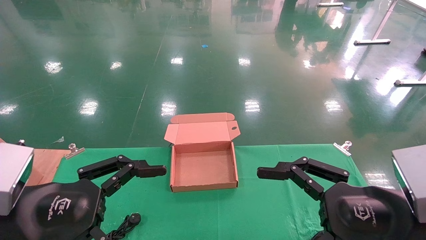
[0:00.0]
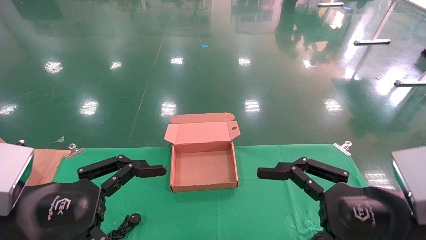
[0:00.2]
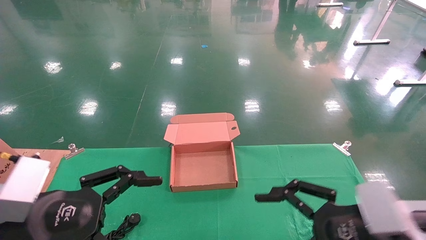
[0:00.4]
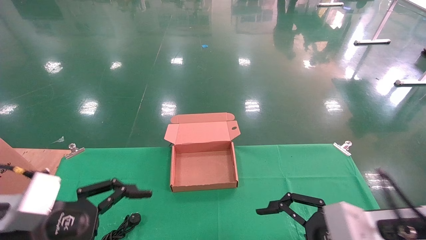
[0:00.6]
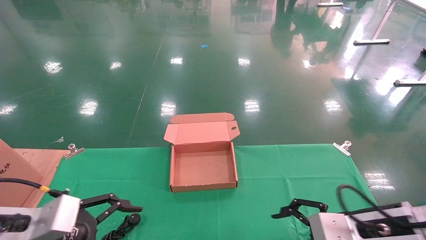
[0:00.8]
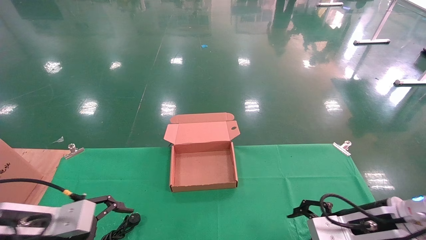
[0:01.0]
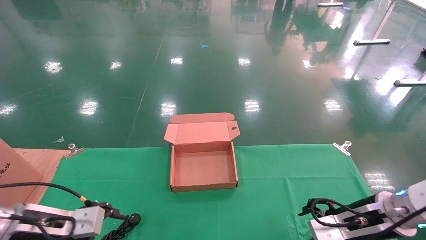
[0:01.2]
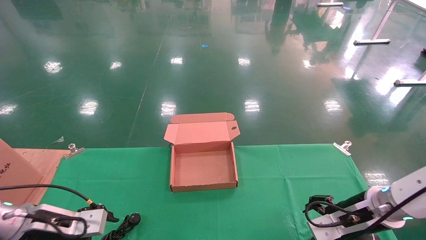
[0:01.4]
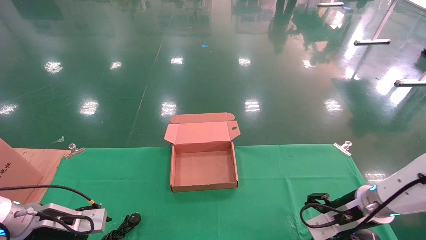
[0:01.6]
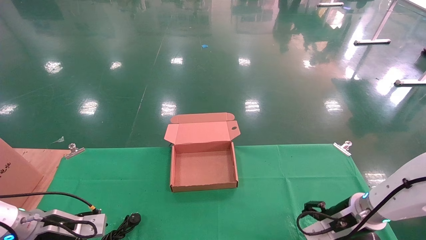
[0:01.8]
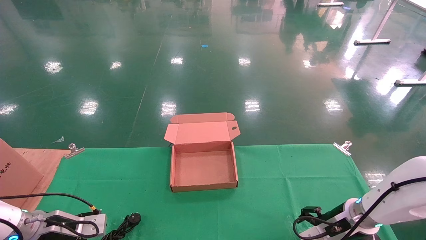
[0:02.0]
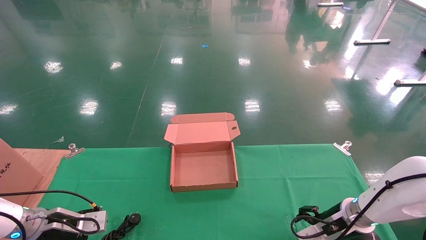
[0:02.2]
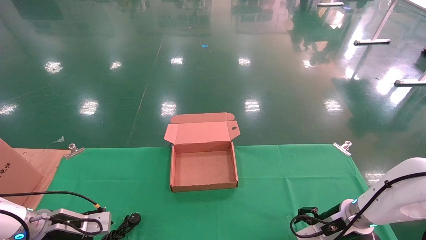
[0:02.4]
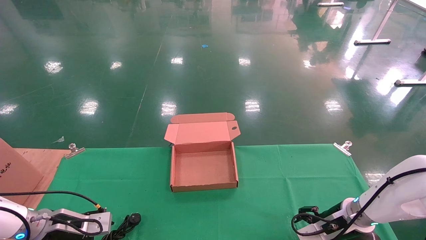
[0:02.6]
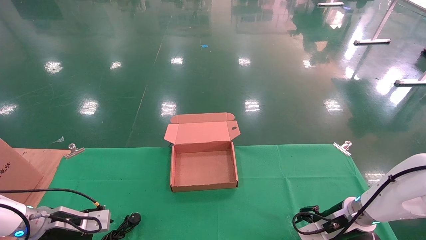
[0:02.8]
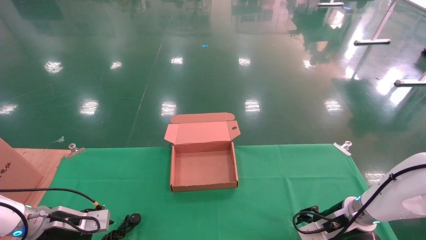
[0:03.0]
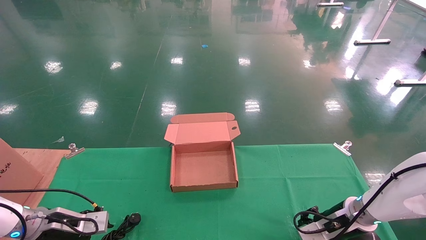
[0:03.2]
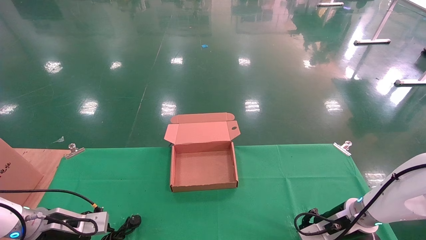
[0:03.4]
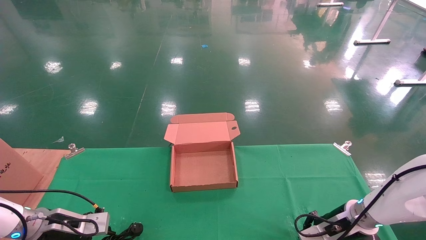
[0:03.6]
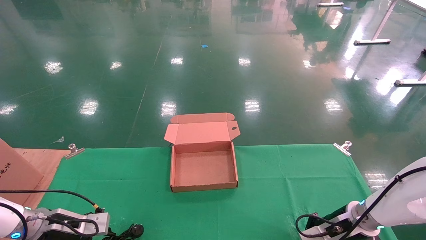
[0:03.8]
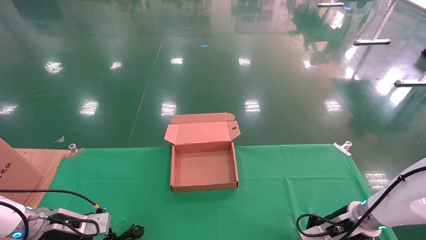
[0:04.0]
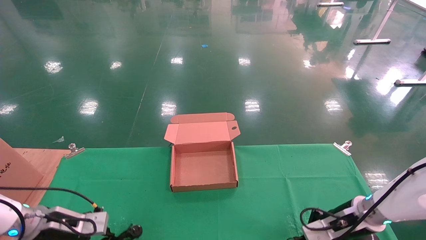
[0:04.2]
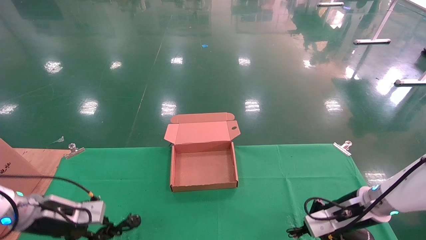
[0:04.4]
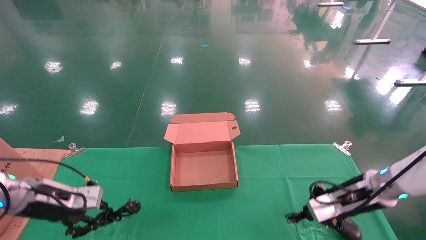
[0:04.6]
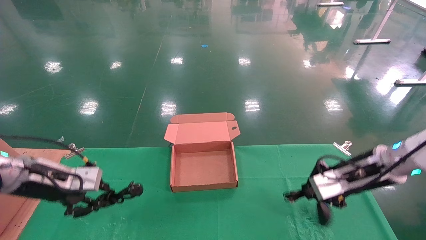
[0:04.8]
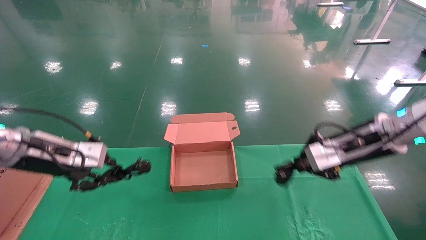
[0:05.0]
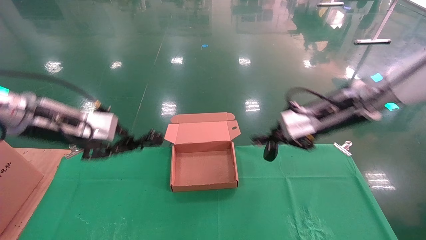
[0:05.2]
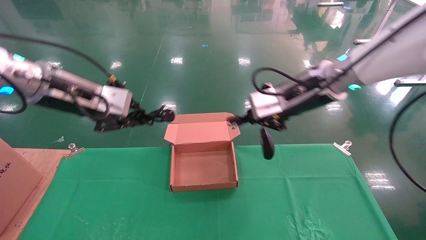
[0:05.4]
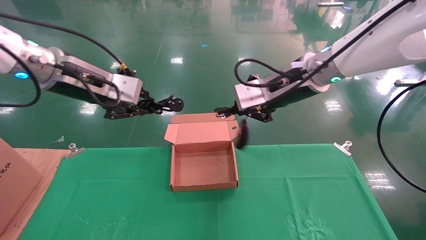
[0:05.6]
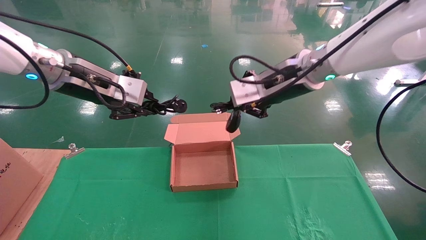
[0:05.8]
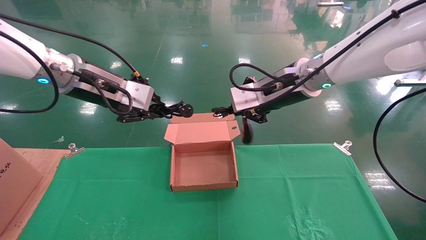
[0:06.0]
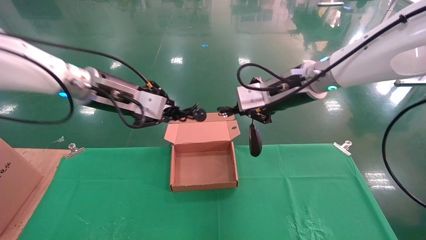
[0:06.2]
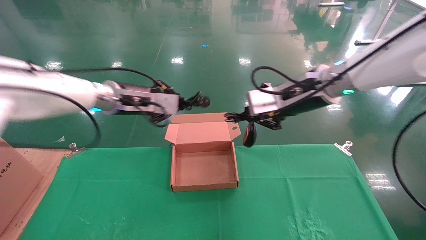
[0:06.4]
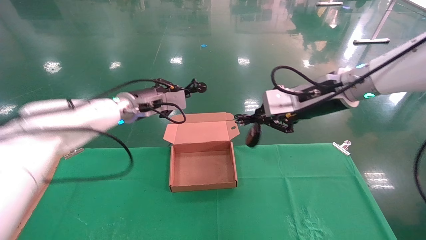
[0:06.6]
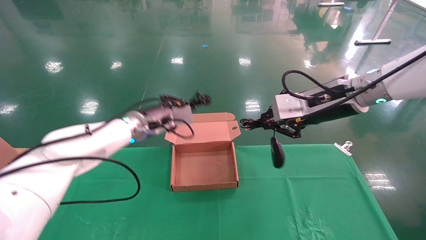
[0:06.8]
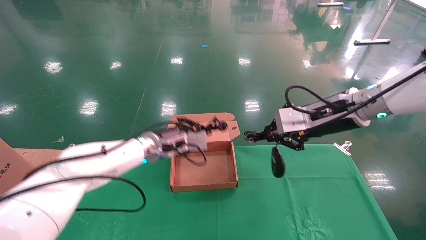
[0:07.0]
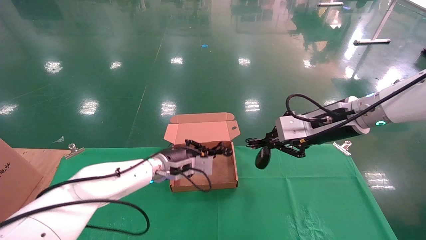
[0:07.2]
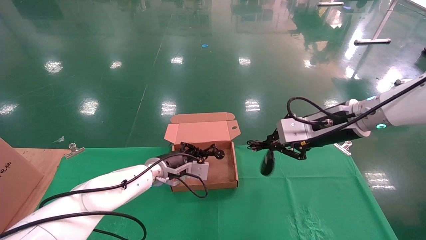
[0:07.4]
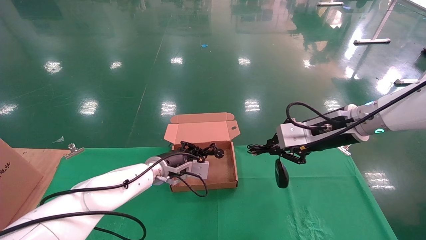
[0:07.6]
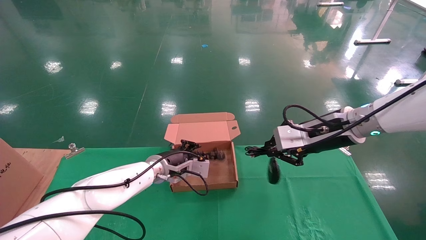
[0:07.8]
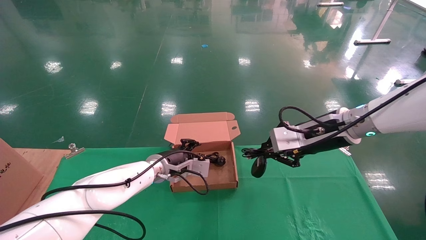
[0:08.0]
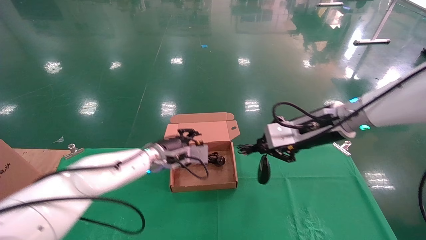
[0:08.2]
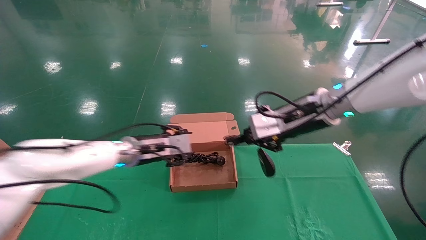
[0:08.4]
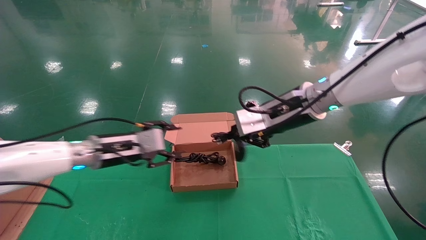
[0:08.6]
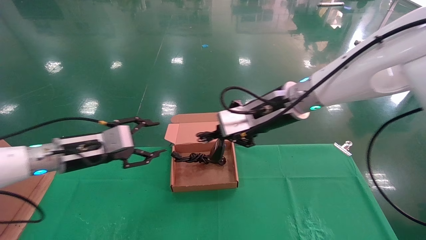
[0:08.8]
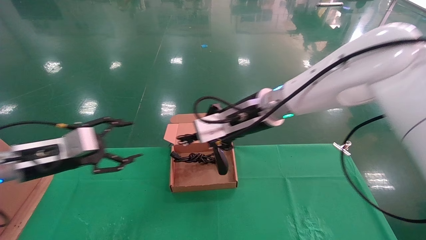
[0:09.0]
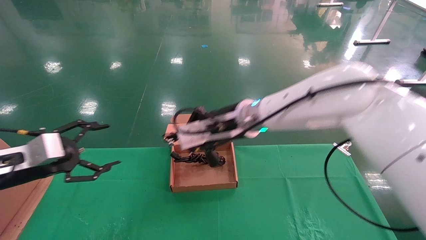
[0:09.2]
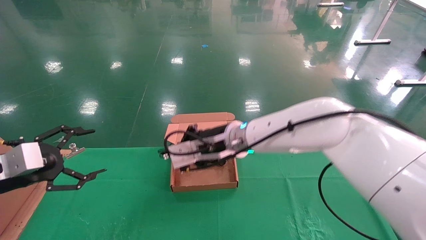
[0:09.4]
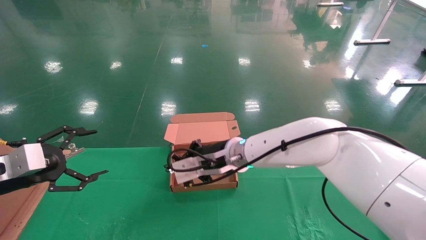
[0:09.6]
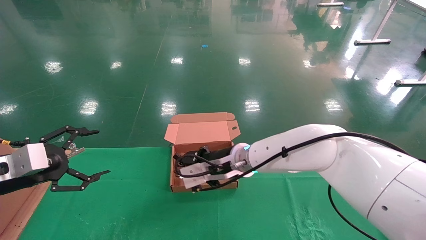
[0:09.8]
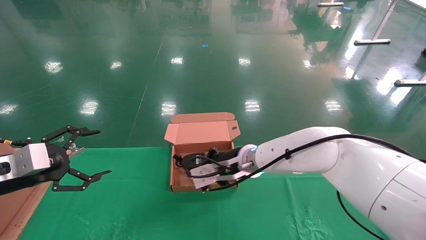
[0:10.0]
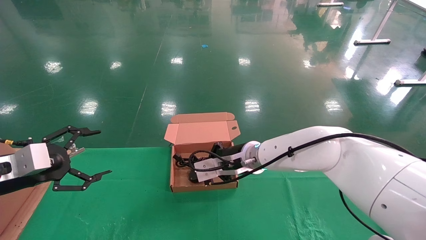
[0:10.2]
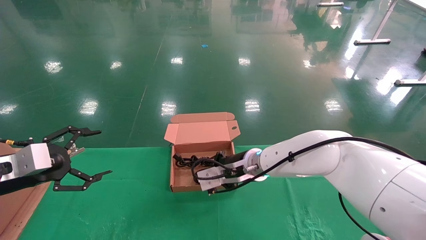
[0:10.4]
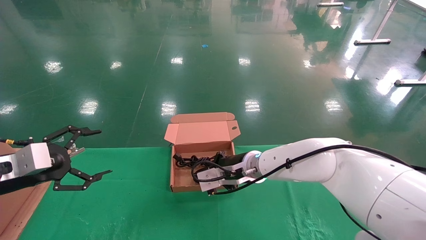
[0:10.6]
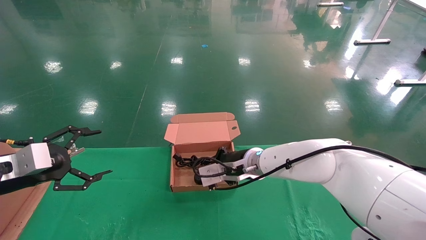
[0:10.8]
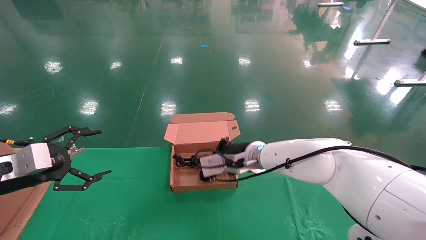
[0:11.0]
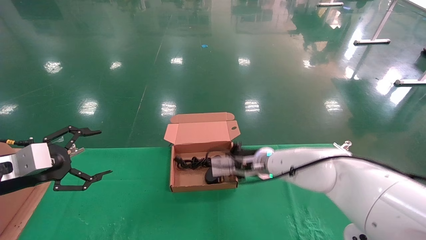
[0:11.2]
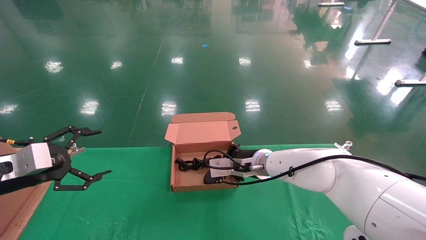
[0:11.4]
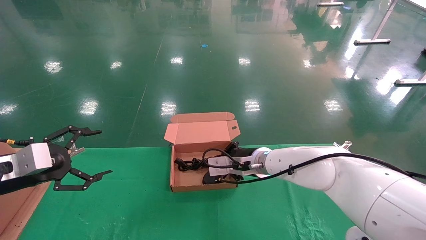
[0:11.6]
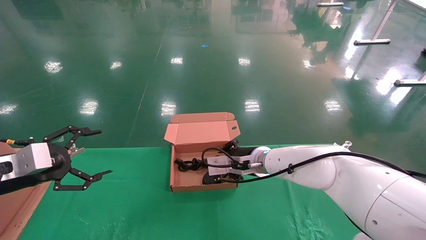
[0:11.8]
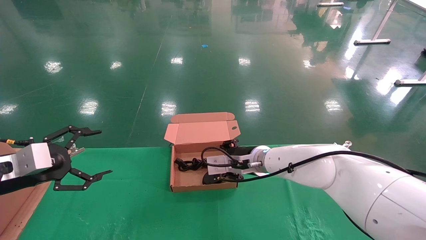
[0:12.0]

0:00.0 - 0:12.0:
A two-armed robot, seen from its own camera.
Step, 0:02.2 - 0:07.0: Grab and lift both the mouse and power cord from the accessory packaging area at the same time.
Step, 0:07.2 - 0:11.2: Place the mouse and power cord into the box.
0:00.0 - 0:01.6: The left gripper shifts approximately 25 cm forward, downward and to the left. Meanwhile the right gripper goes some 20 cm forward and downward.
0:01.6 - 0:03.0: The right gripper ends up approximately 5 cm from where it was.
0:03.0 - 0:04.4: The left gripper shifts by some 5 cm, and closes up, while the right gripper ends up roughly 5 cm from where it was, and closes up.
0:04.4 - 0:06.0: The right gripper is displaced upward and to the left by about 30 cm. The left gripper is displaced upward and to the right by approximately 30 cm.
0:06.0 - 0:07.6: The right gripper travels to the right and downward by about 10 cm. Meanwhile the left gripper heads downward, forward and to the right, covering about 30 cm.
0:07.6 - 0:09.0: The right gripper travels to the left by roughly 15 cm. Meanwhile the left gripper shifts some 25 cm to the left and backward, and opens up.
0:09.0 - 0:10.4: The right gripper moves downward, roughly 15 cm. Meanwhile the left gripper travels to the left by approximately 5 cm, and opens up.
0:10.4 - 0:12.0: The right gripper opens.

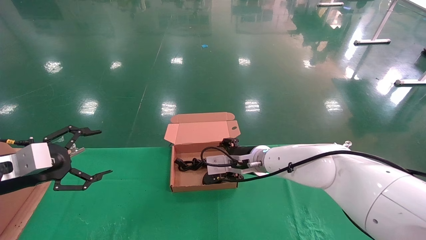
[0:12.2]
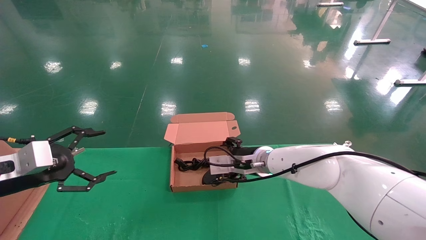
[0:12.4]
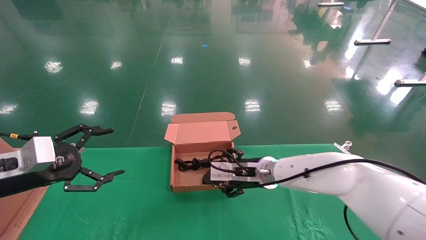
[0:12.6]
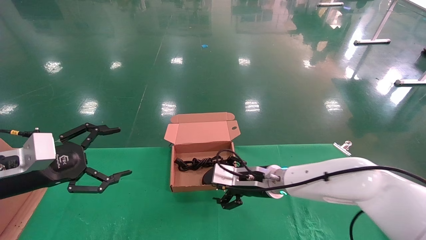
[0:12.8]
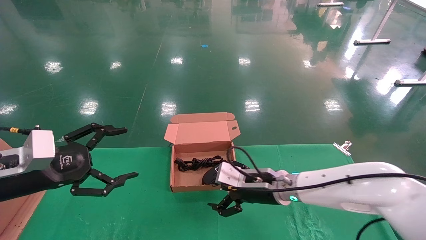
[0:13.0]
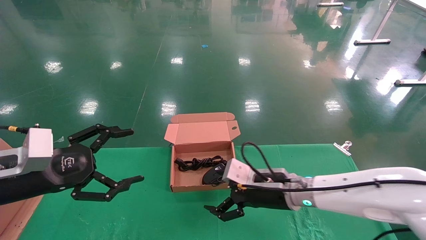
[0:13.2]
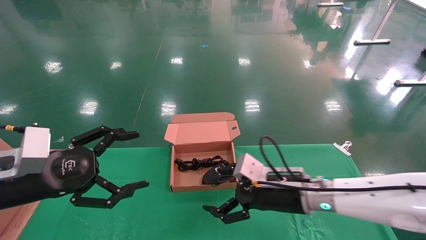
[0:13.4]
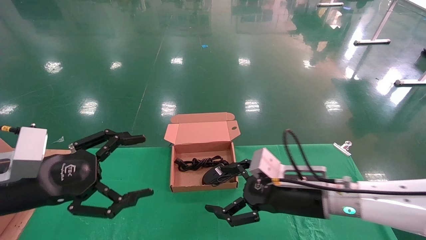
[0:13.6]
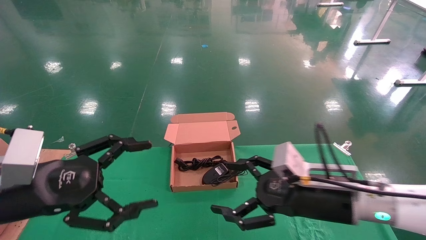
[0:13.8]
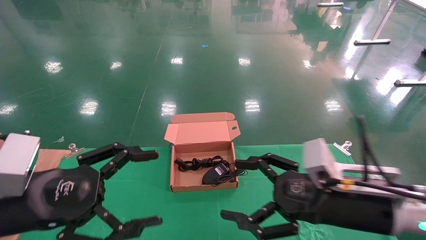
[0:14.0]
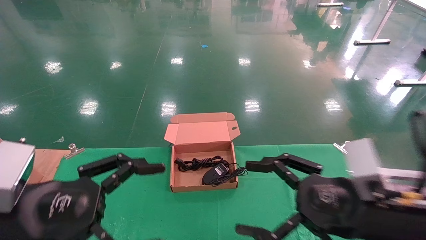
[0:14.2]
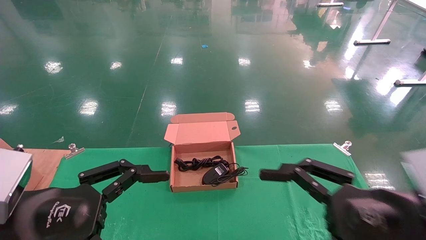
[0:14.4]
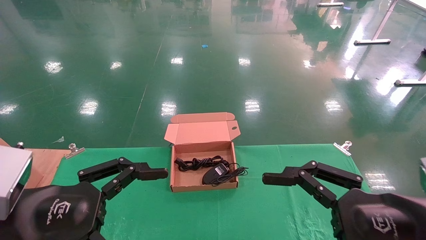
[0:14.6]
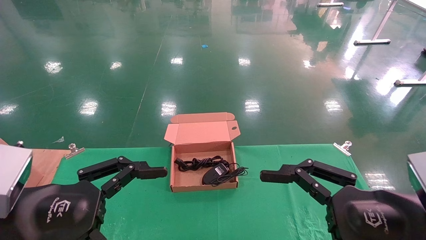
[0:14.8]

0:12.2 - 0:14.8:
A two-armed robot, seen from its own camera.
0:12.2 - 0:13.4: The left gripper is displaced to the right and backward by roughly 10 cm. Meanwhile the right gripper heads backward and to the right, covering some 15 cm, and opens.
0:13.4 - 0:14.8: The right gripper shifts approximately 25 cm backward, to the right and upward, while the left gripper goes about 10 cm backward and to the right.

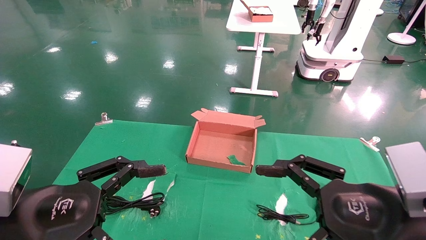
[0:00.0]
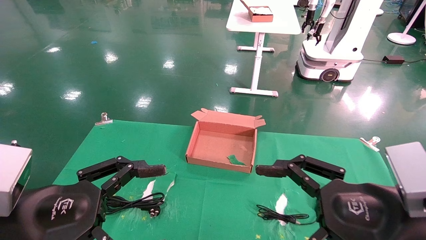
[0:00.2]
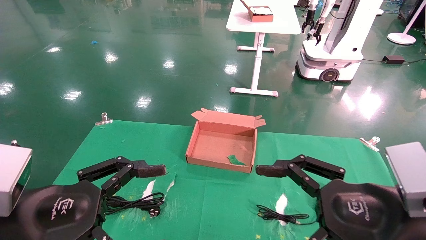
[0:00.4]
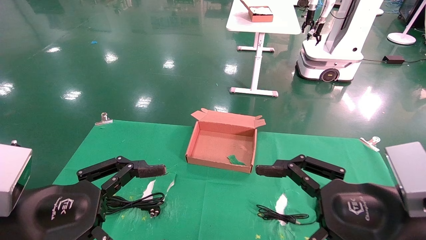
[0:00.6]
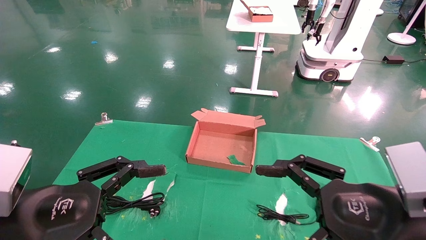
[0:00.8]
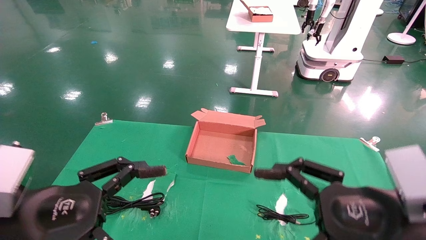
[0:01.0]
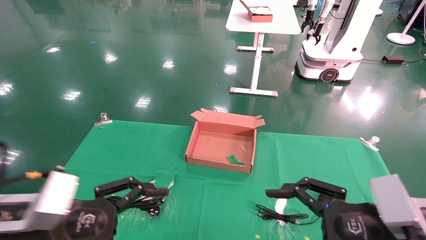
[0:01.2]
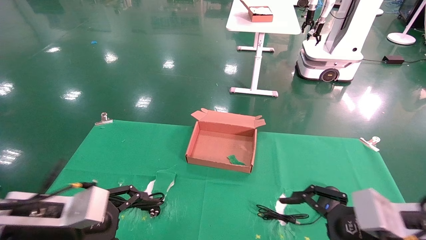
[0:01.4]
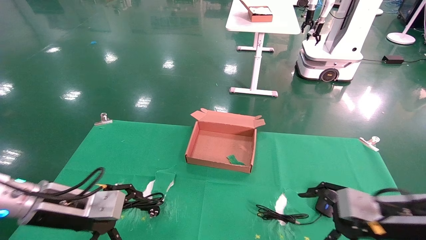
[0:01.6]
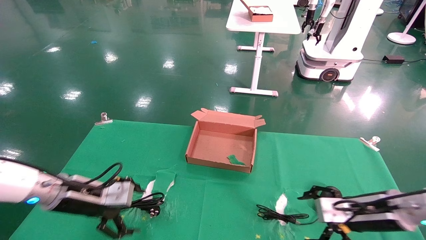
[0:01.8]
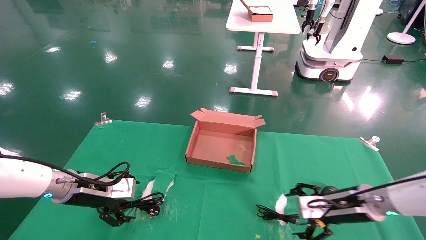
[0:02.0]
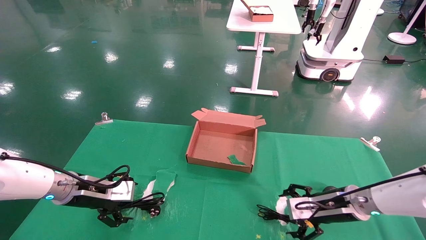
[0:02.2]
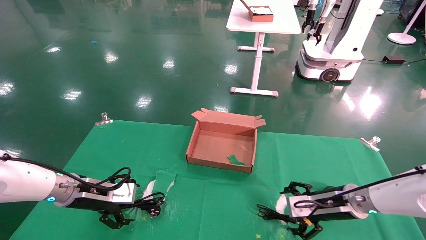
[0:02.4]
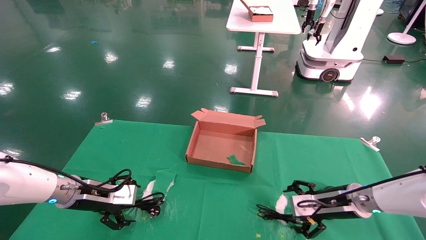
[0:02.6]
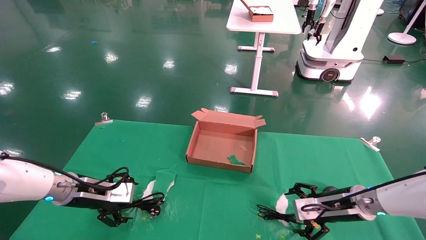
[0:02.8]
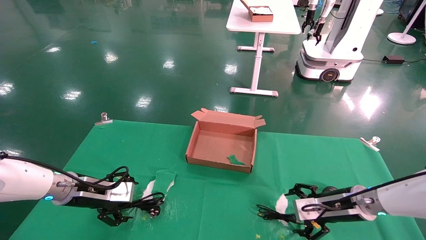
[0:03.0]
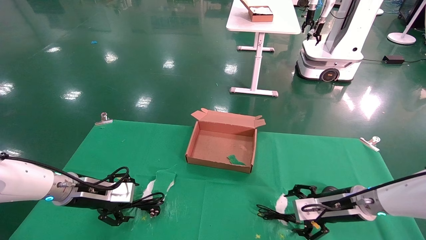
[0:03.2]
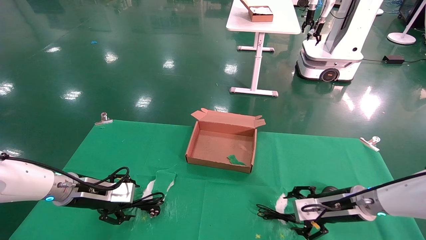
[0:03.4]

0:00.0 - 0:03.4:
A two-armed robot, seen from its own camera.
0:00.0 - 0:01.6: The left gripper is displaced forward by some 15 cm; the right gripper shifts roughly 15 cm forward, downward and to the right.
0:01.6 - 0:03.4: The right gripper moves forward and downward, about 10 cm. The left gripper is displaced forward by approximately 10 cm.
